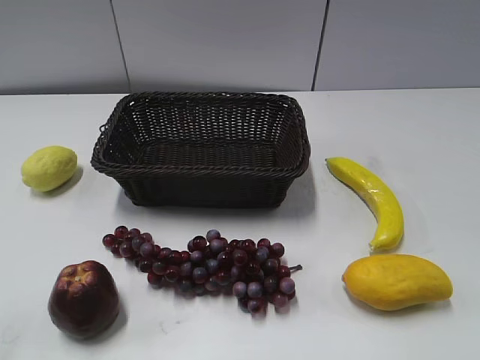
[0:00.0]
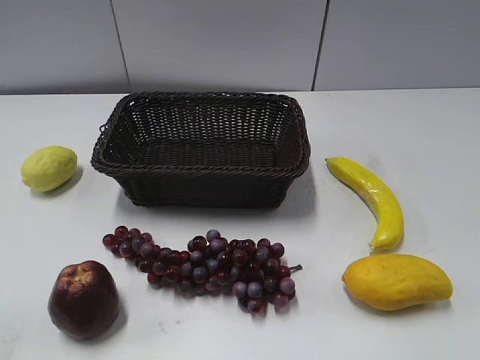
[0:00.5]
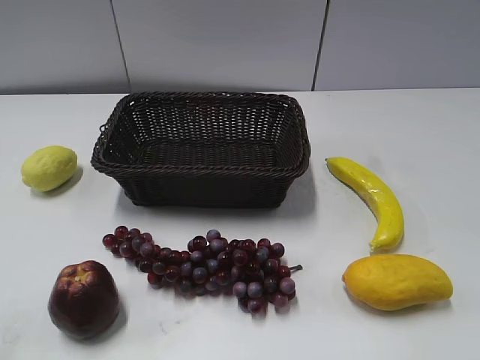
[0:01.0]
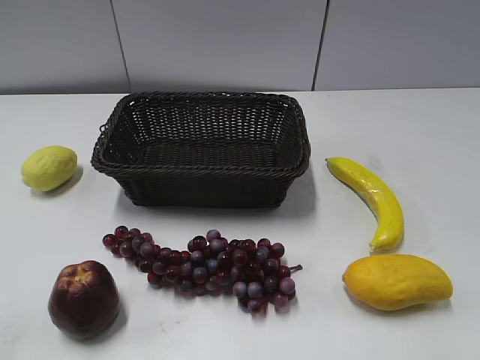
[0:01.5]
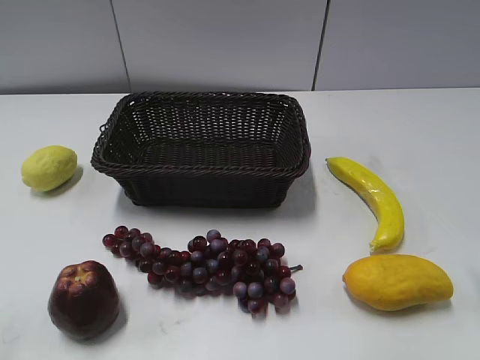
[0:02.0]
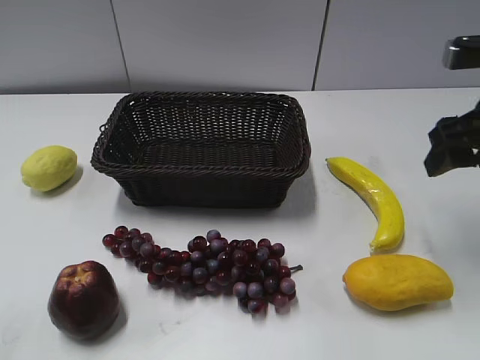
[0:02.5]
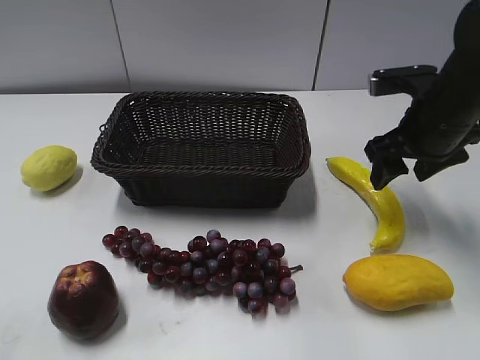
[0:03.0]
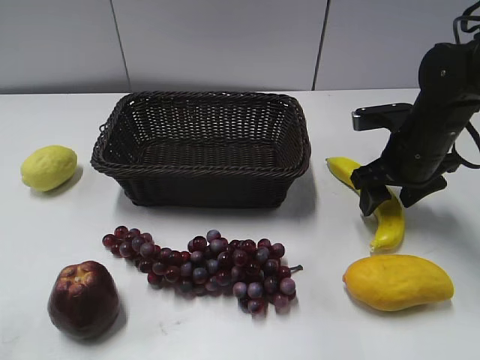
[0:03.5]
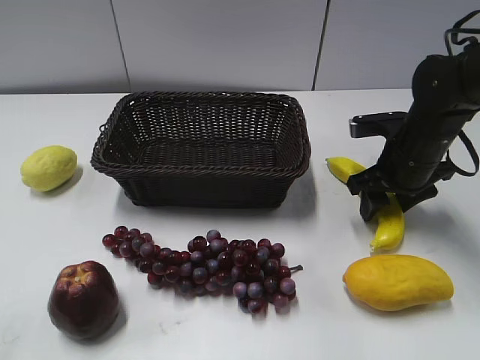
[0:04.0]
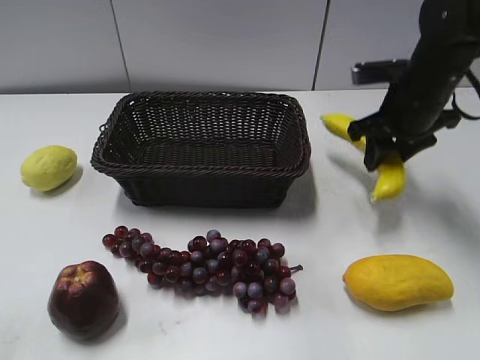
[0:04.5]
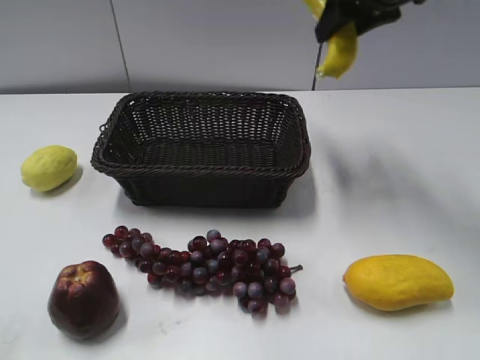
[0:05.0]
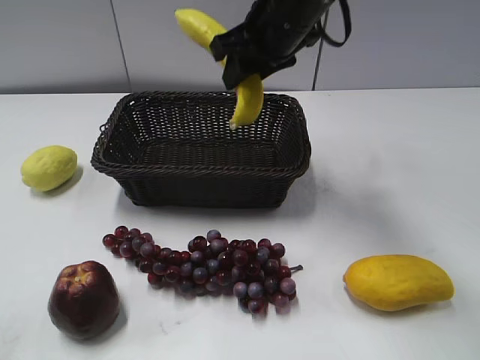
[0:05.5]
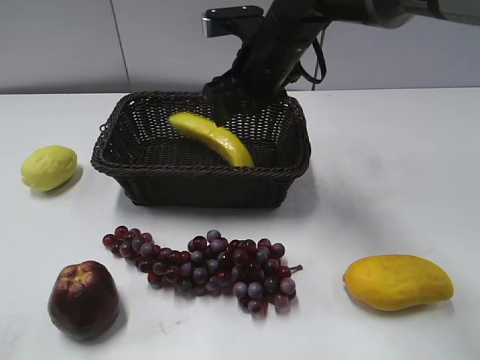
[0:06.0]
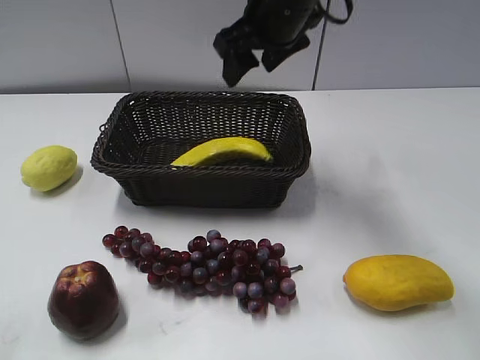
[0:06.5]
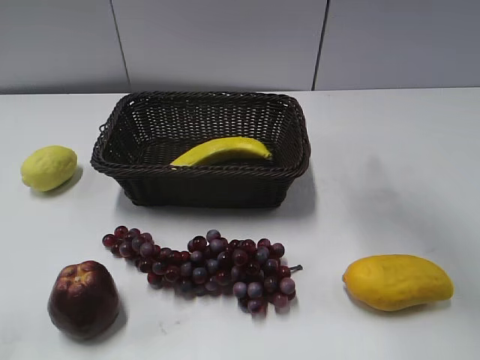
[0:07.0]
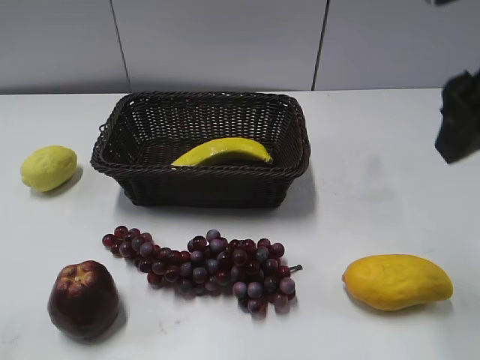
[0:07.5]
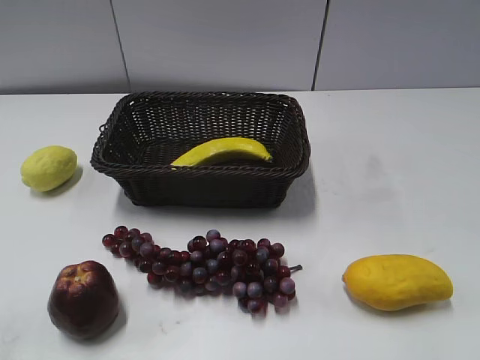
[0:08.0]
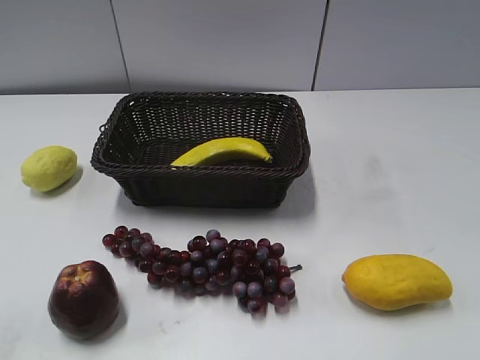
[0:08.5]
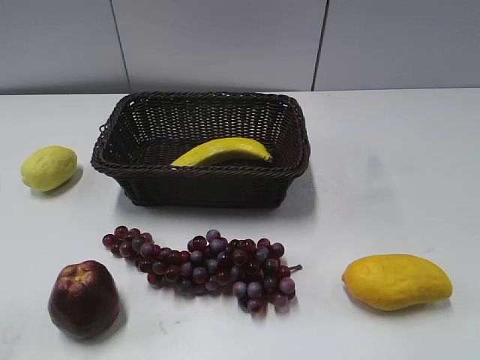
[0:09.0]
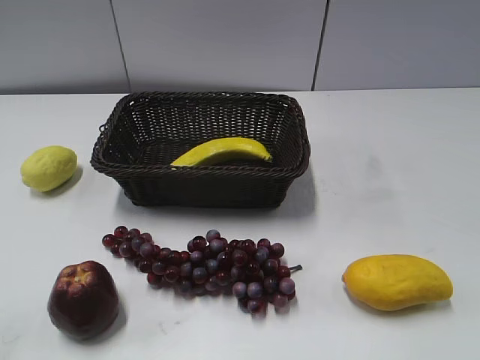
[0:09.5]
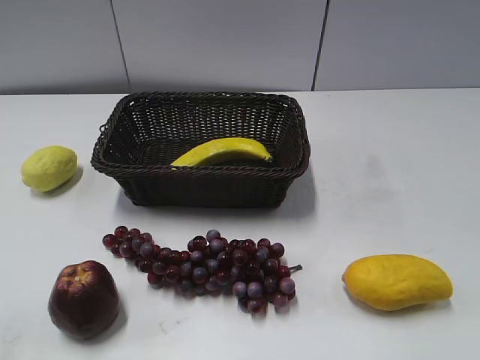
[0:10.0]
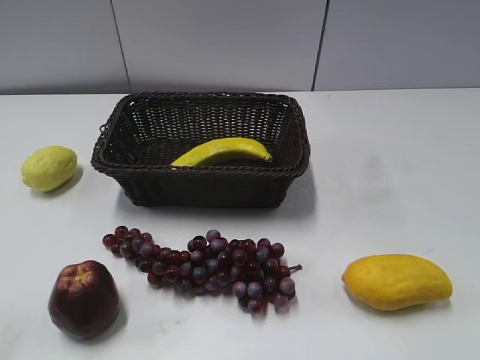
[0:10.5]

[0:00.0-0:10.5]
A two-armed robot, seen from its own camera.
Step, 0:02.5 to 0:04.0: Grasp the banana with right gripper.
Step, 0:04.5 to 0:06.0: Place the banana in the basket with right gripper.
0:02.0 to 0:04.0: The right gripper moves forward, downward and to the left, some 25 cm, and closes.
0:04.0 to 0:06.5: The right gripper goes up and down, roughly 20 cm each way, reversing 2 times, and opens up.
0:06.5 to 0:08.5: The right gripper goes approximately 40 cm backward and to the right.

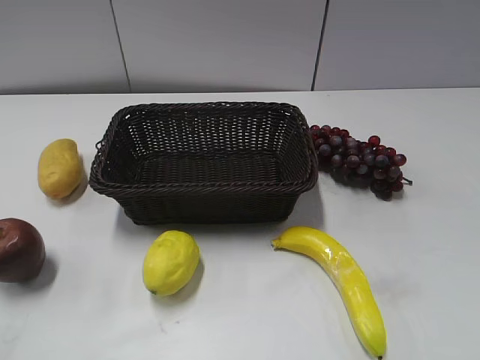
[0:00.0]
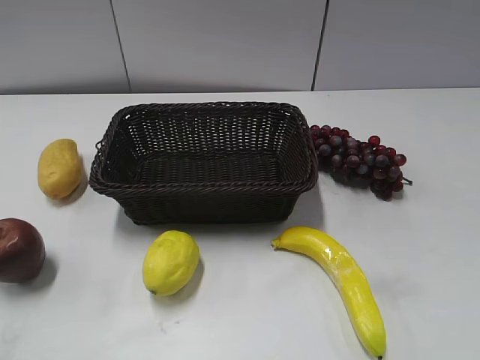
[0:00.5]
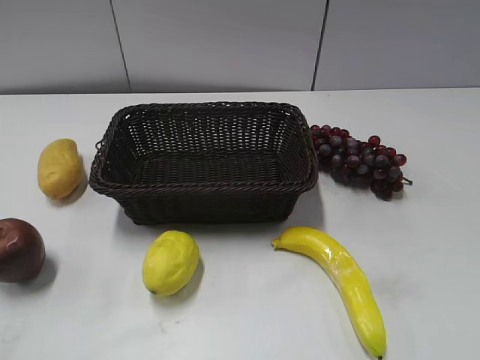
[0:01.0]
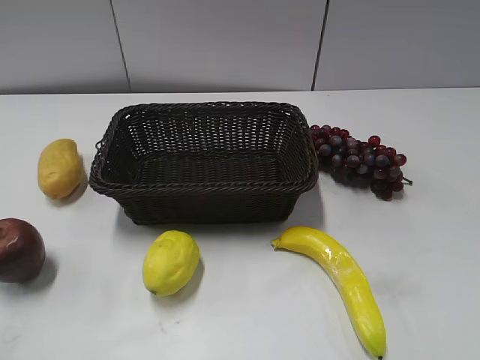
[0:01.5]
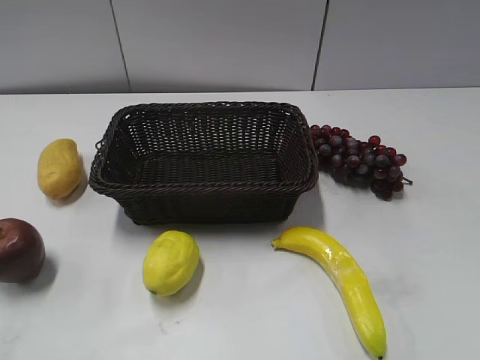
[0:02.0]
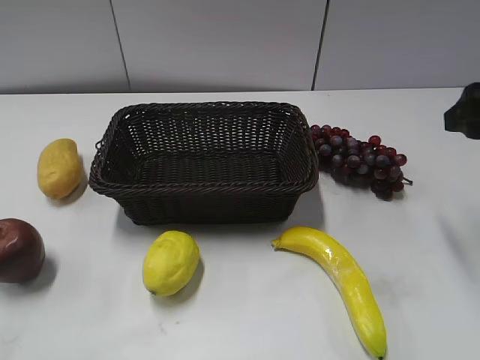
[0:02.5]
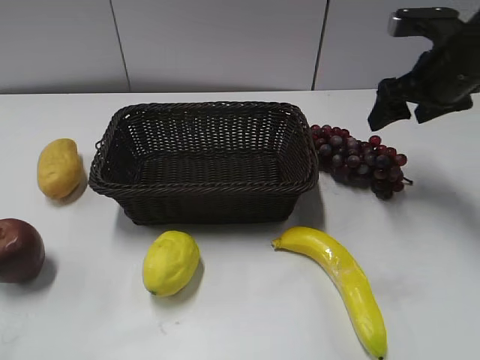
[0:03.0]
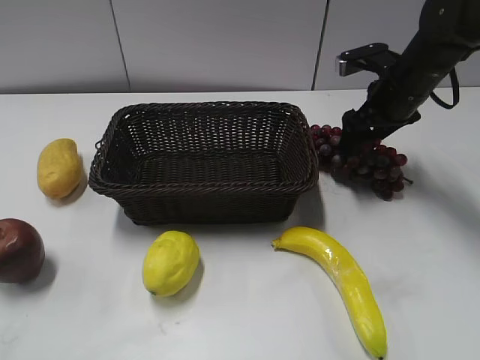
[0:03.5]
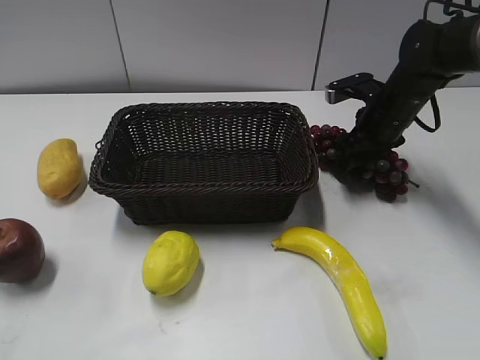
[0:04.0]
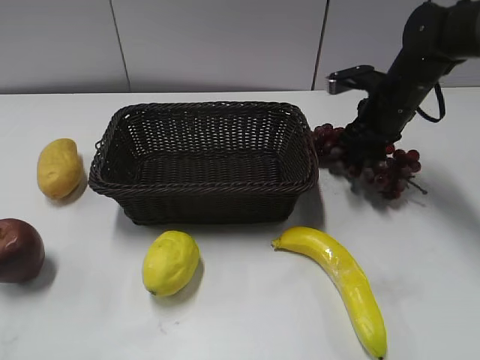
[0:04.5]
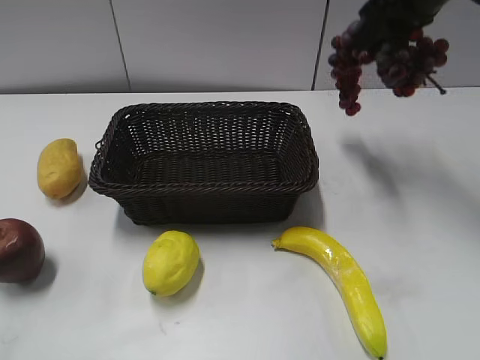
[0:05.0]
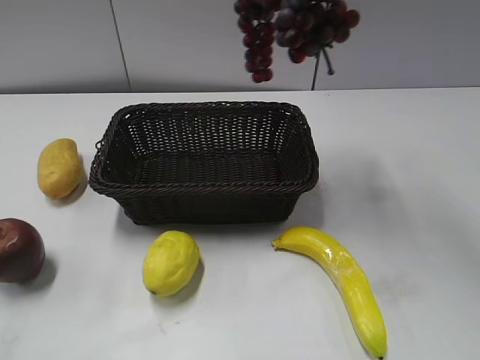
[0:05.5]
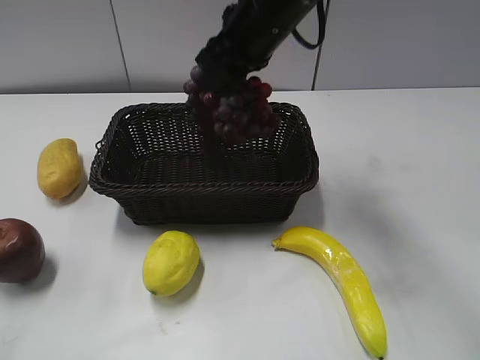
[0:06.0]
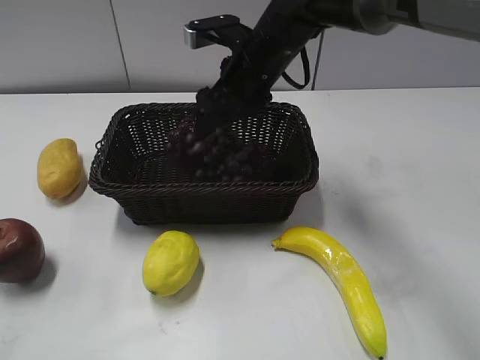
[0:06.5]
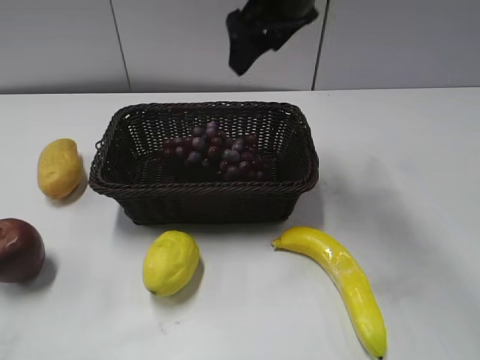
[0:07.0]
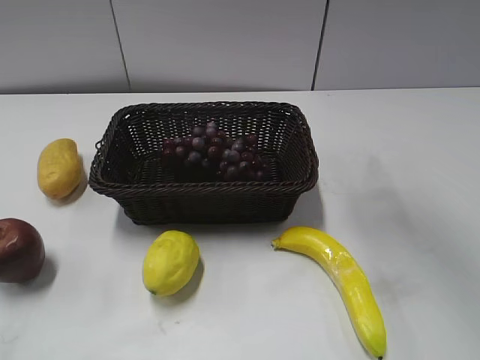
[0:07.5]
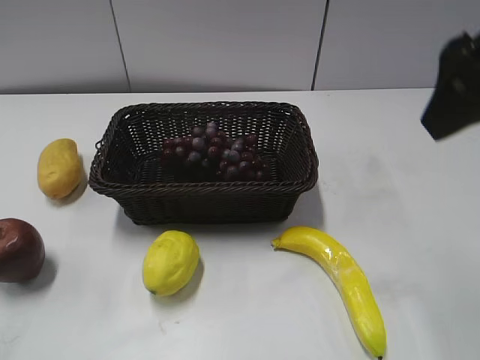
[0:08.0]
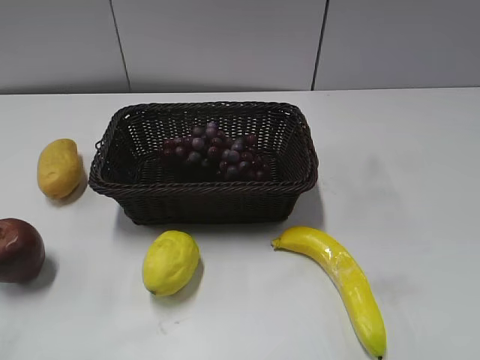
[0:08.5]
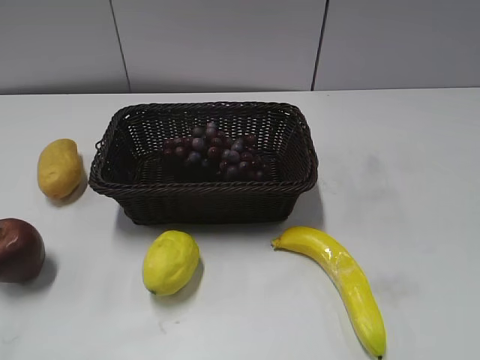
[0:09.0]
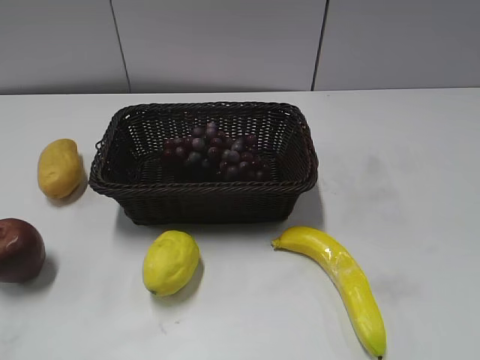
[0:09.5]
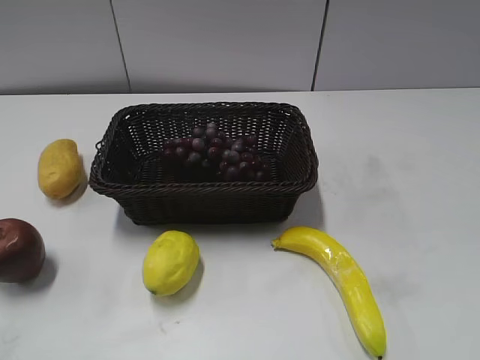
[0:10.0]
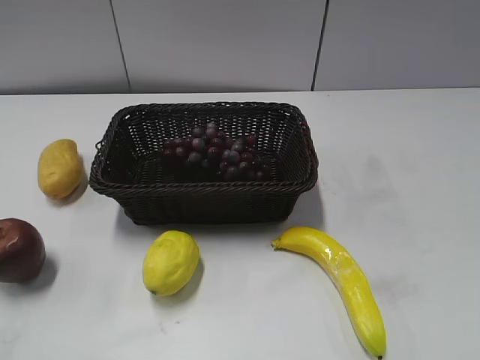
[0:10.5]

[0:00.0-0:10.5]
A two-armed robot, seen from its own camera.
Step, 0:02.5 to 0:04.5: Grasp the grape with right gripper.
Step, 0:05.0 to 0:07.0: Place the grape in the basket with right gripper.
0:02.0 to 0:04.0: The right gripper is displaced forward and downward by some 35 cm.
0:04.0 to 0:06.5: The right gripper heads to the left, covering about 20 cm, goes upward and returns, approximately 25 cm each way, and closes, then reopens.
0:06.5 to 0:08.5: The right gripper travels backward and to the right by some 40 cm.

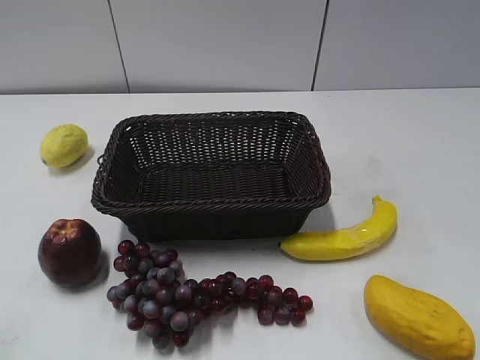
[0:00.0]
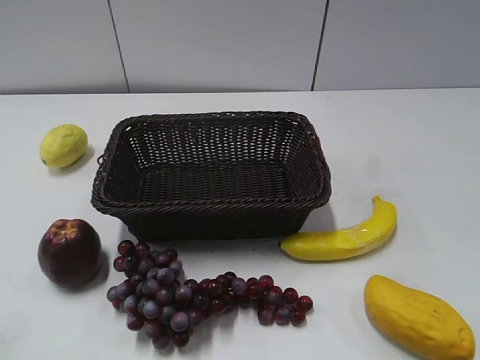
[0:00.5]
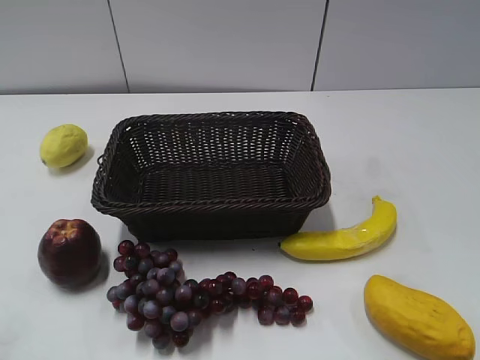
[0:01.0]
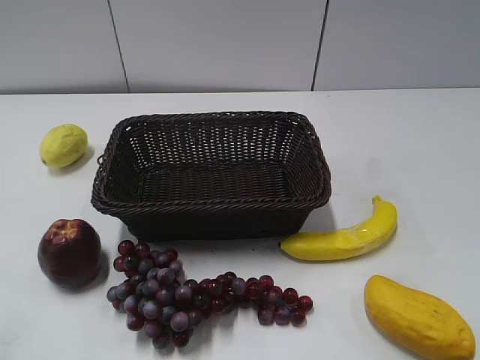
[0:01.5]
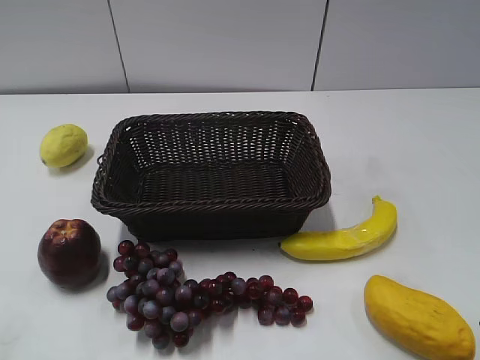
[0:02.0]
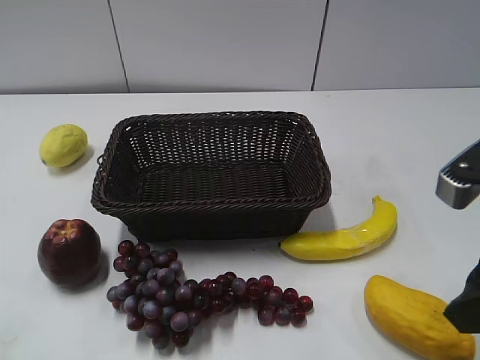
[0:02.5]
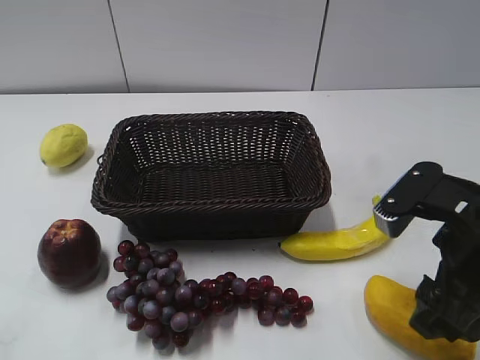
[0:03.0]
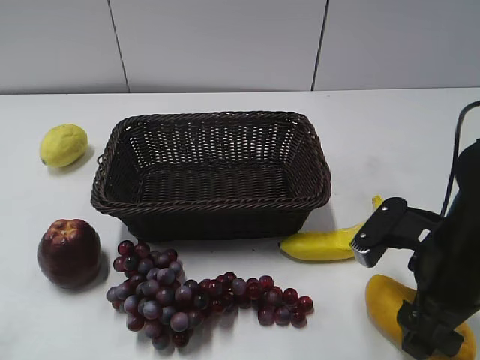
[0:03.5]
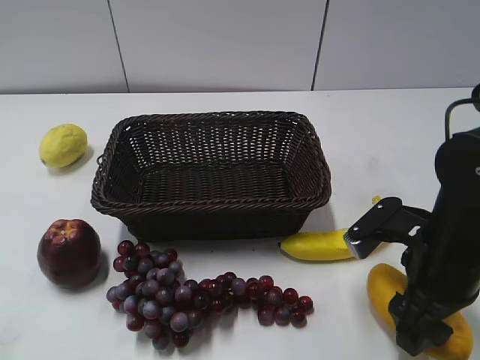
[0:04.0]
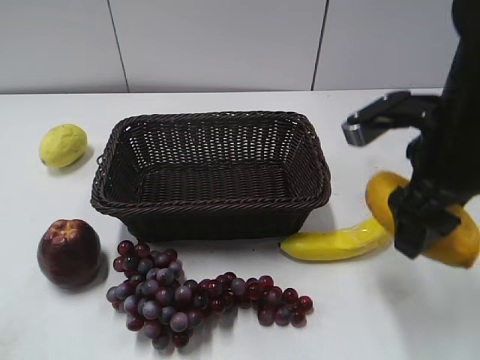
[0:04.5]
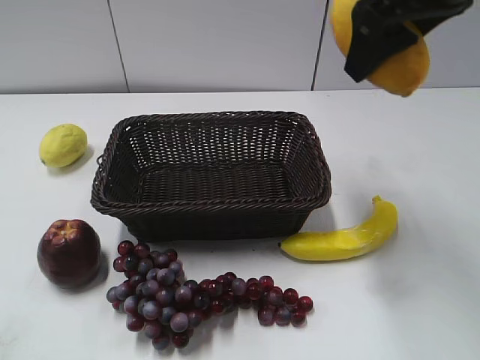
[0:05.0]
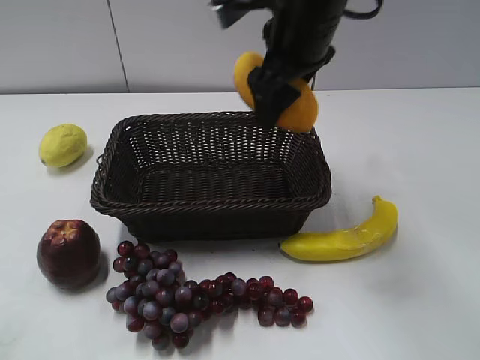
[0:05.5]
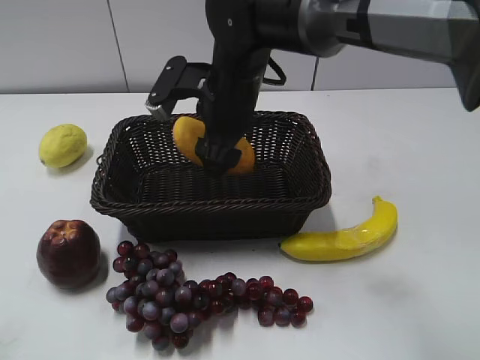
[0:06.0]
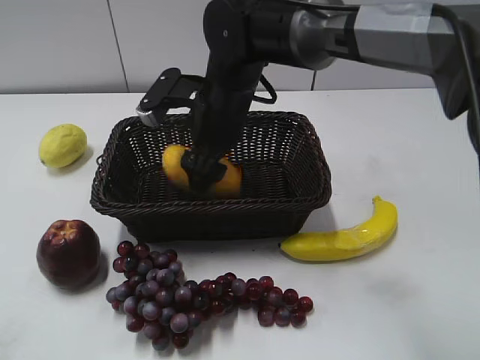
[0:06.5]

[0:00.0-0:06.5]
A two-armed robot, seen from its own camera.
Step, 0:02.0 to 0:03.5: Grasp the mango with right gripper.
0:02.0 to 0:04.5: The right gripper goes some 15 cm forward and to the left.
0:04.5 to 0:06.5: The right gripper shifts about 25 cm to the left and forward.
